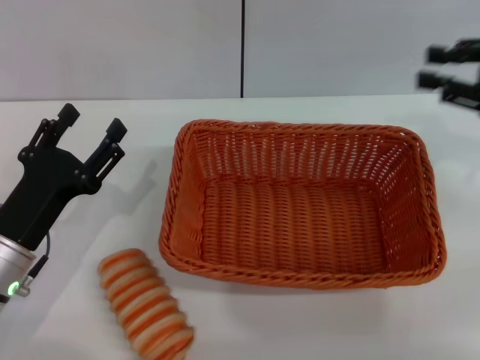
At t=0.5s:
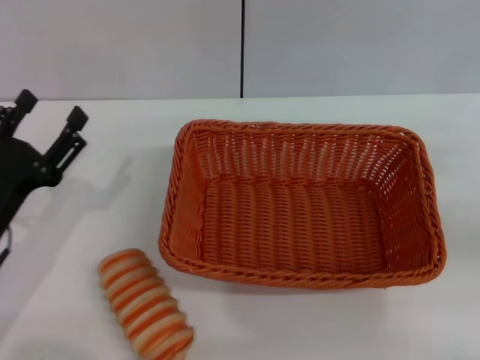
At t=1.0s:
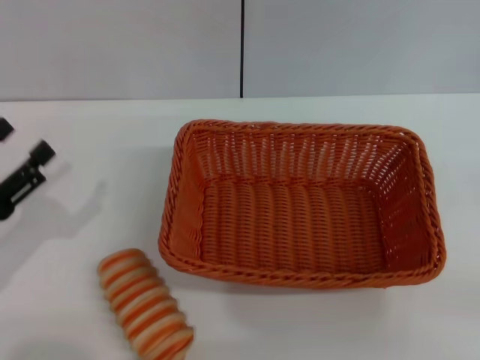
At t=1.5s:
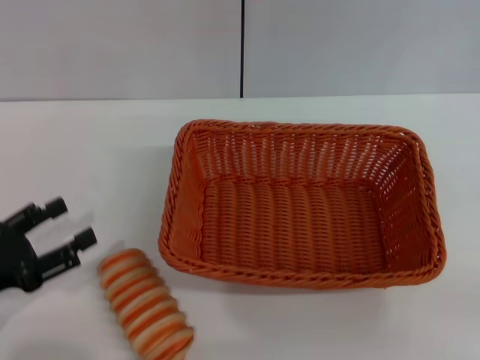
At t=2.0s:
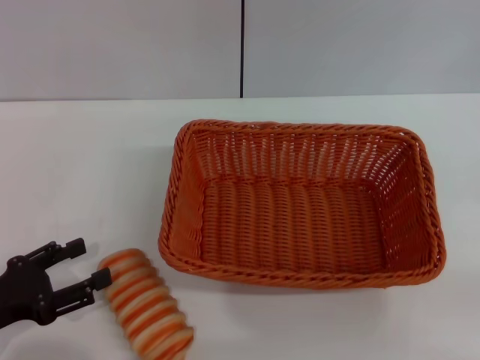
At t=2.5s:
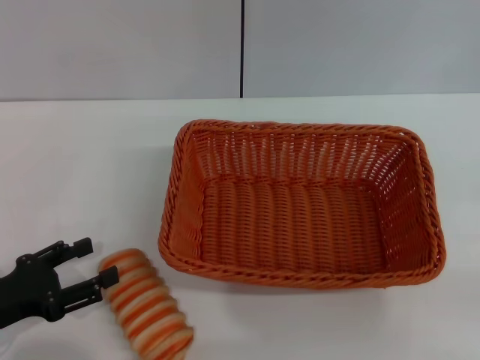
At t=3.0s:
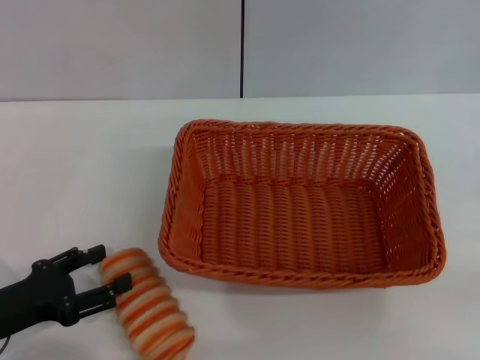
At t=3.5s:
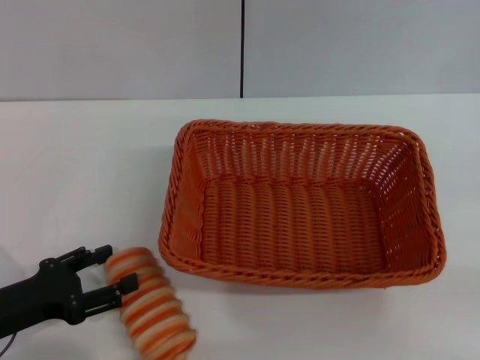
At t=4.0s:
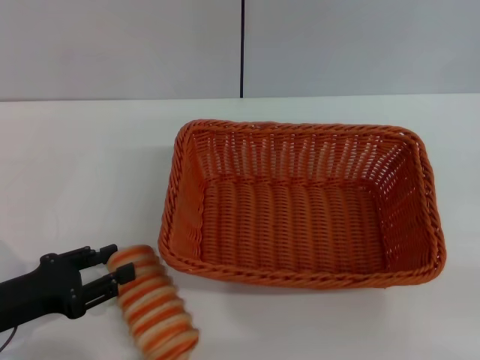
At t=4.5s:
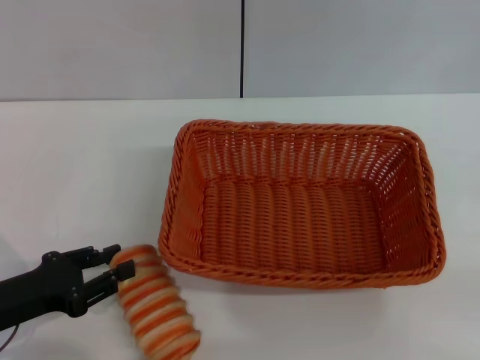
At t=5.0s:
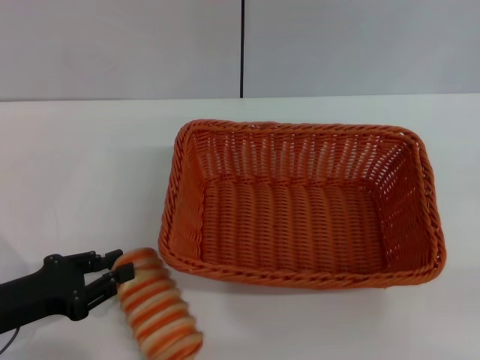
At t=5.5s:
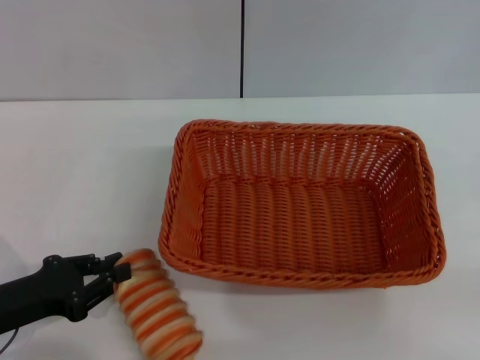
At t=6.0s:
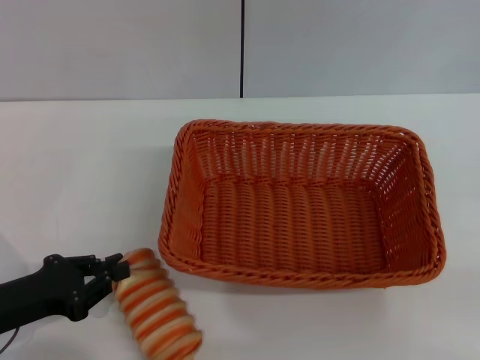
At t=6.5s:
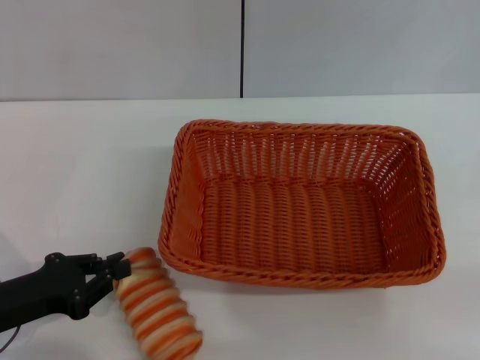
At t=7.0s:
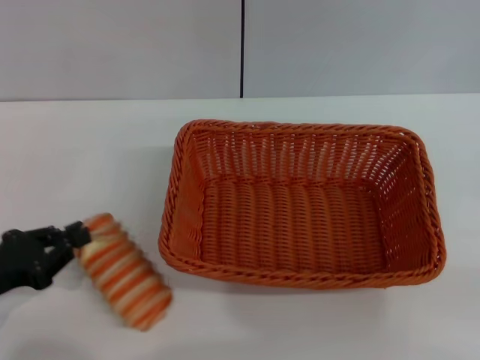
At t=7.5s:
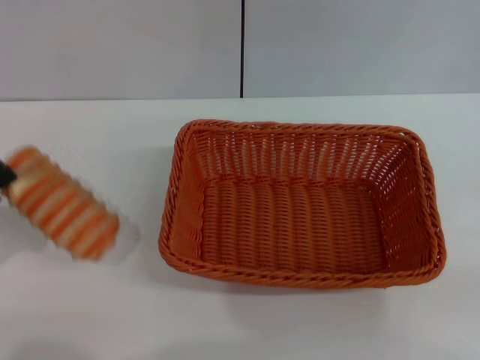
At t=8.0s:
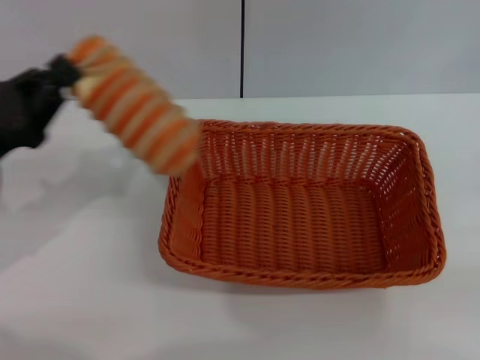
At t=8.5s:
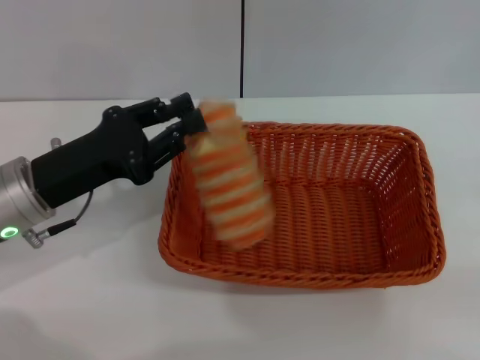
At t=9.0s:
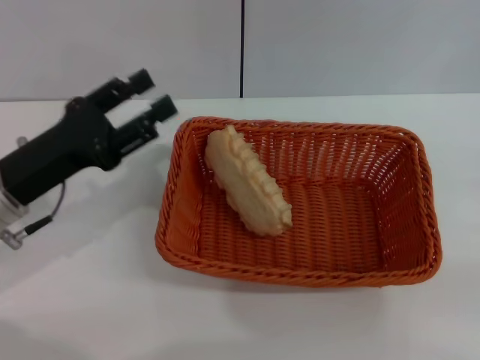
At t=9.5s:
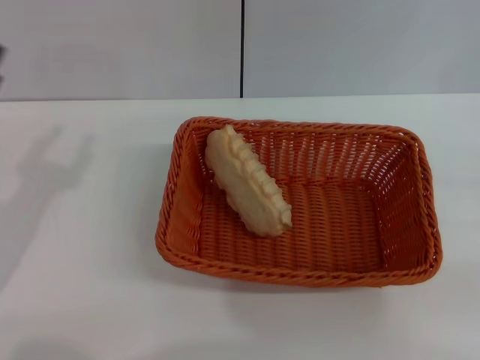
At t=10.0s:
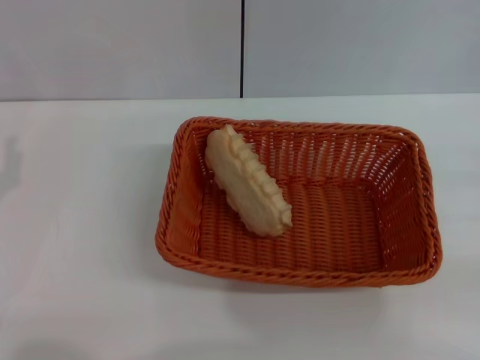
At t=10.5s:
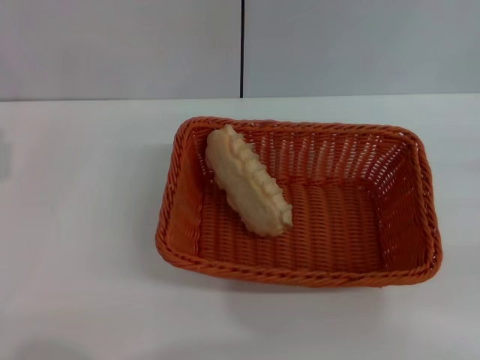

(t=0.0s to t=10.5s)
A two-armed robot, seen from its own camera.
Step, t=0.0s - t=7.5s: Pick up the long bread with the left gripper.
Step, t=8.0s - t=8.5s: Place the long bread into the light basket with the left gripper.
t=0.0s - t=2.0s: The left gripper travels to the left by about 10 cm, while the right gripper heads backward, to the right and downward, covering some 20 cm.
t=2.0s - t=4.0s: The grippers stay close to where they were, moving slightly.
t=4.0s - t=6.5s: The left gripper closes.
t=6.5s - t=8.5s: The left gripper is displaced forward, to the right and upward by roughly 10 cm.
t=8.5s - t=10.5s: The left gripper moves to the left and backward, some 10 cm, and opens its fingers.

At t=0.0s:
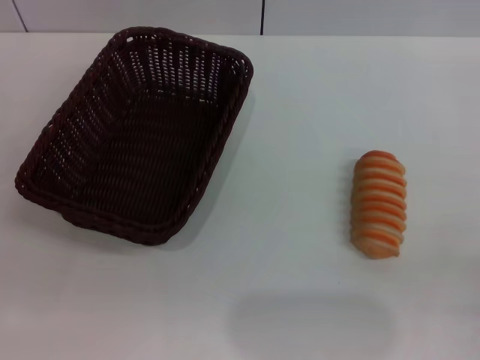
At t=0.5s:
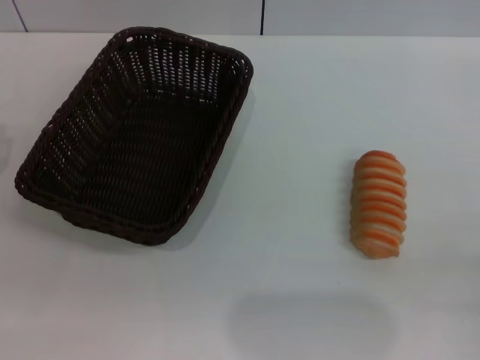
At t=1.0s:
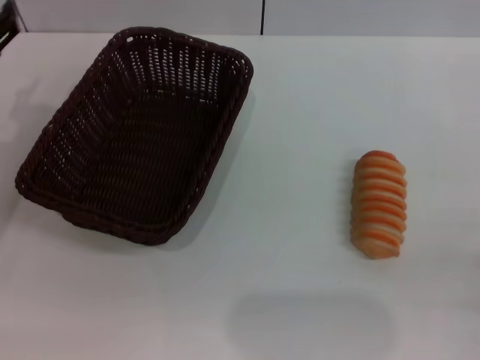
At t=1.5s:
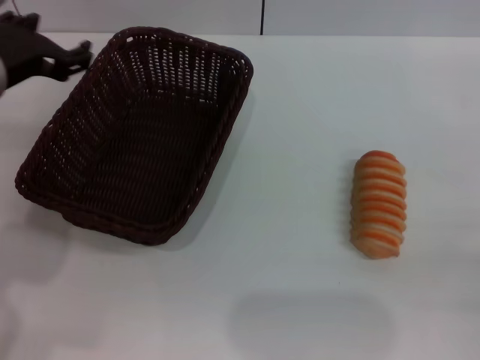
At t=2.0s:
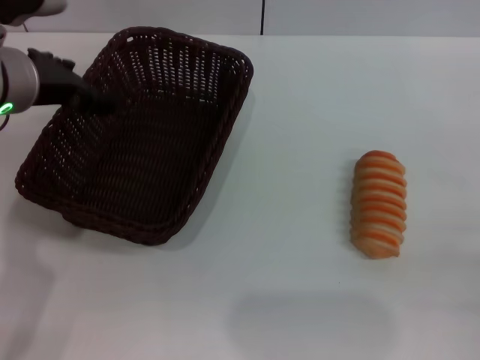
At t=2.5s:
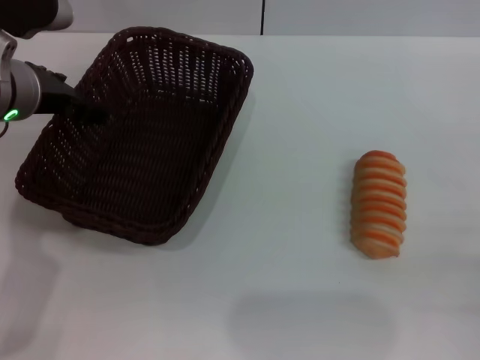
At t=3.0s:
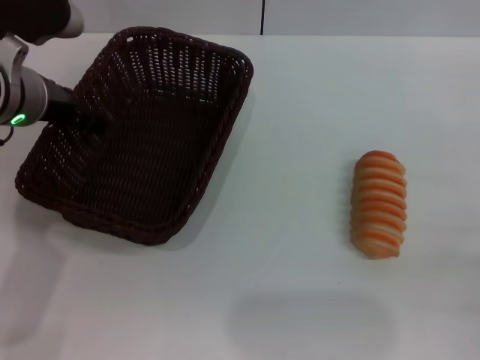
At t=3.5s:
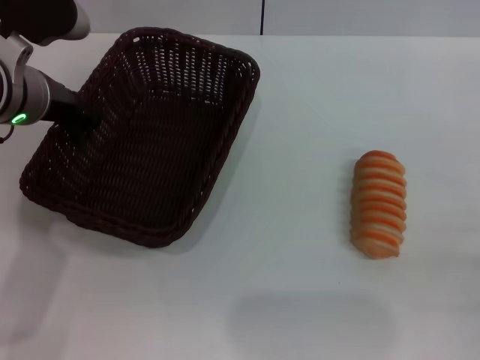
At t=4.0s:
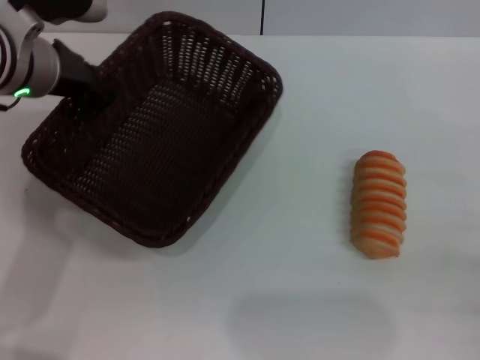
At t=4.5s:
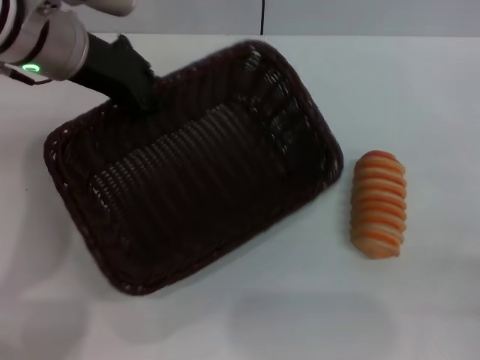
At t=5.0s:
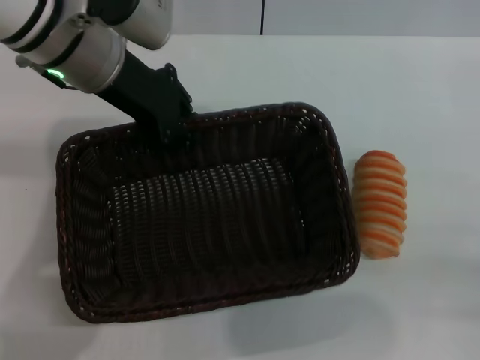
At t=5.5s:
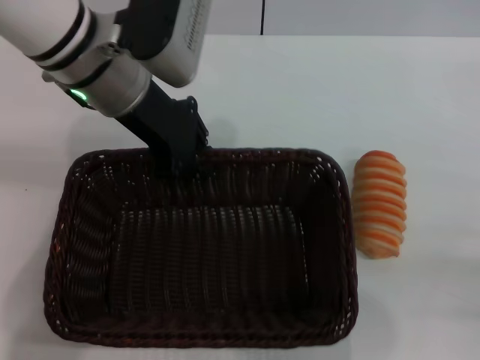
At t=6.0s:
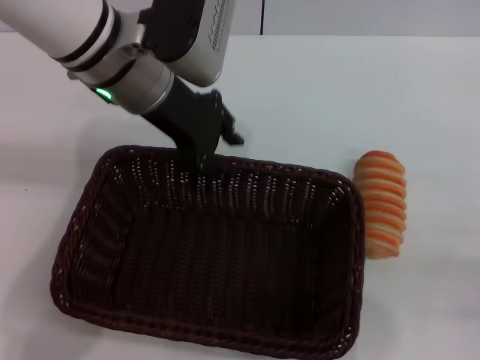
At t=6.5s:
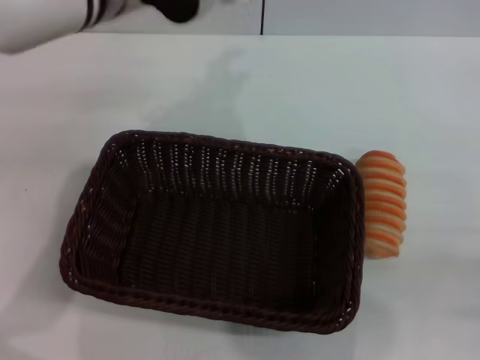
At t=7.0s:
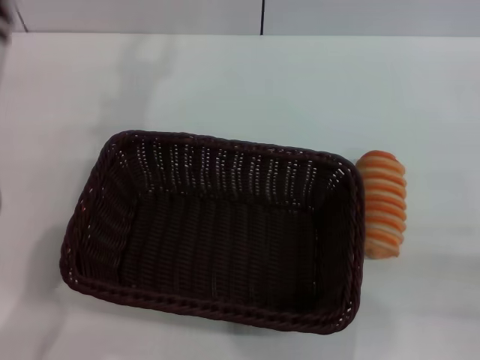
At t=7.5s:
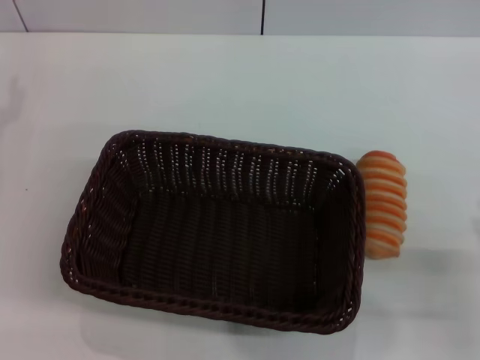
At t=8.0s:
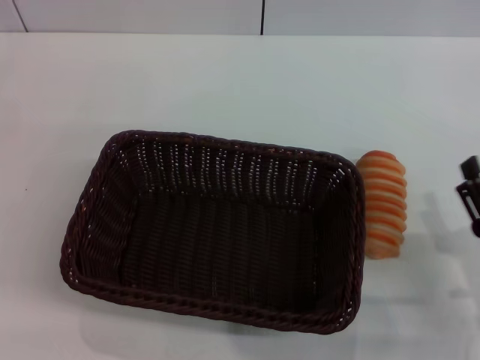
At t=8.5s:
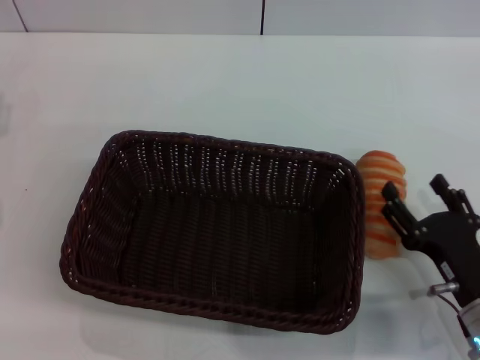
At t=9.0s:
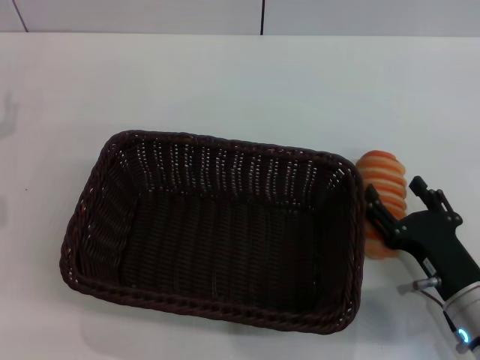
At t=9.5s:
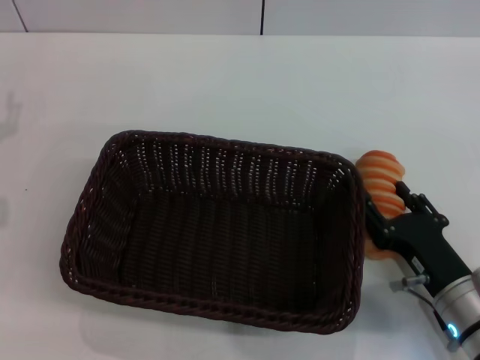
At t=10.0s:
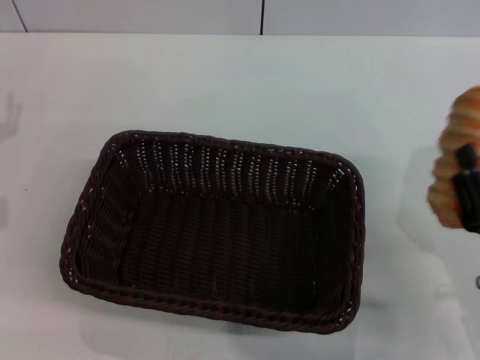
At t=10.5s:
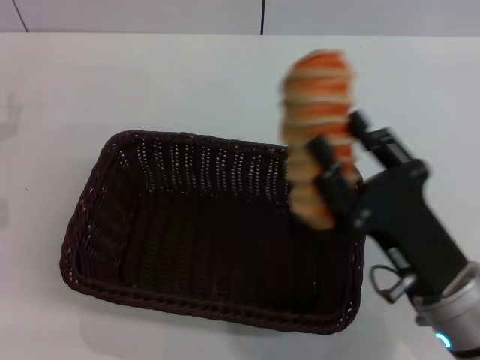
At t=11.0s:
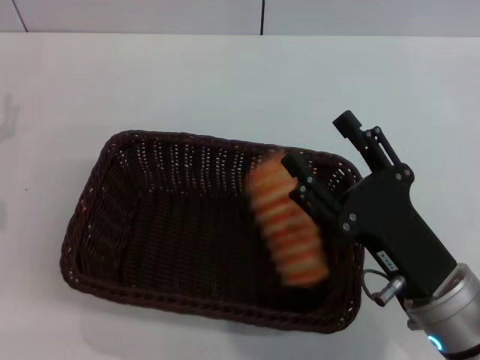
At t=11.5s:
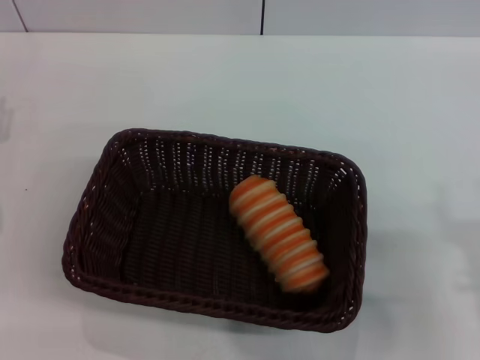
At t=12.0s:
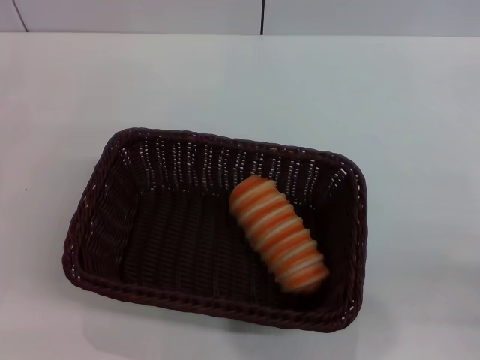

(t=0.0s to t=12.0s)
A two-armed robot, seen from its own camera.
Step, t=0.0s - t=4.0s: Pick up the dark basket with the left gripper.
Step, t=4.5s - t=6.0s: Place the dark basket in the center of view with the left gripper.
Step, t=6.5s - t=10.0s: Pick up the long bread with the right gripper.
Step, t=10.5s - t=11.0s: Place the long bread into the dark basket with the right gripper.
t=0.0s - t=2.0s: The left gripper goes some 20 cm upward, to the right and forward.
t=2.0s - t=4.0s: The left gripper closes its fingers.
t=4.0s - t=6.0s: The left gripper heads to the right, covering about 10 cm.
t=6.0s - t=8.0s: The left gripper travels to the left, downward and backward by approximately 30 cm, and opens up, while the right gripper is displaced to the left by roughly 5 cm.
t=8.0s - t=10.0s: The right gripper closes its fingers.
t=10.0s - t=12.0s: The right gripper is displaced to the right by some 5 cm, and opens its fingers.
